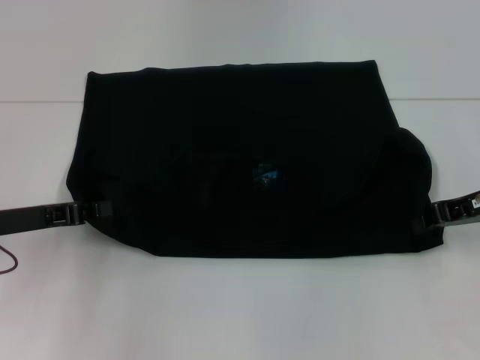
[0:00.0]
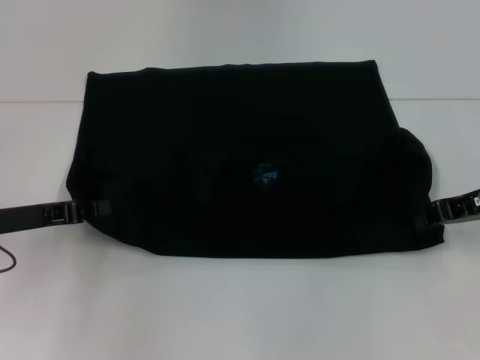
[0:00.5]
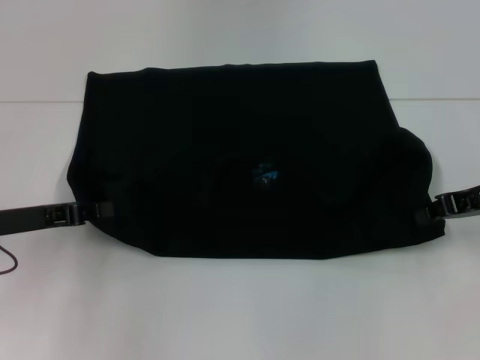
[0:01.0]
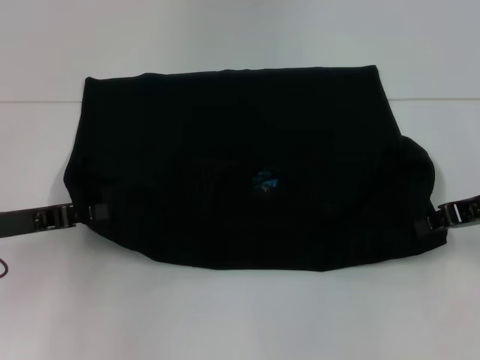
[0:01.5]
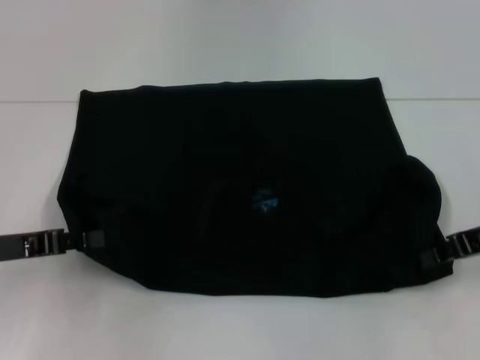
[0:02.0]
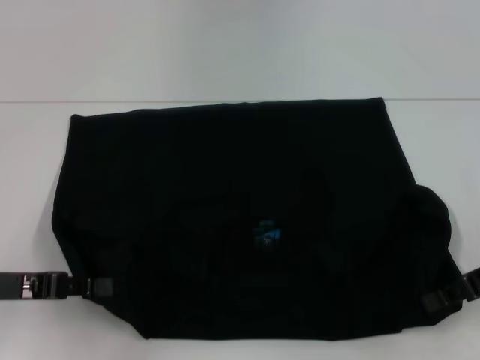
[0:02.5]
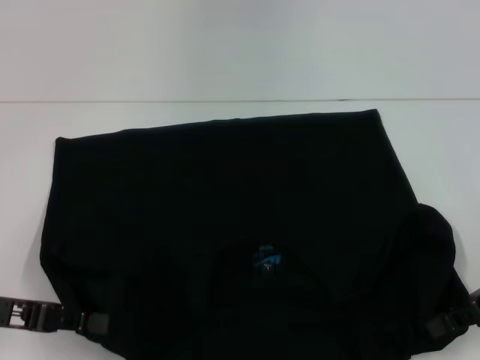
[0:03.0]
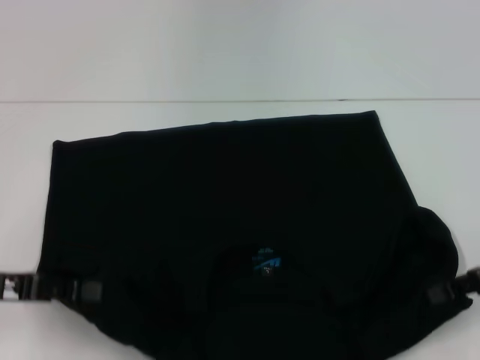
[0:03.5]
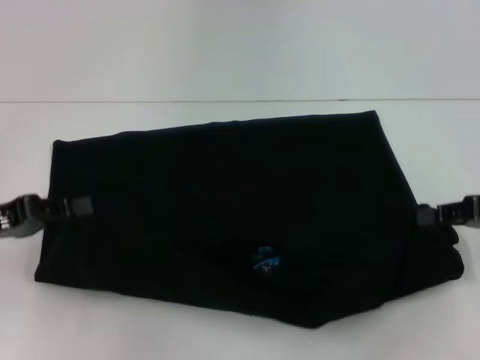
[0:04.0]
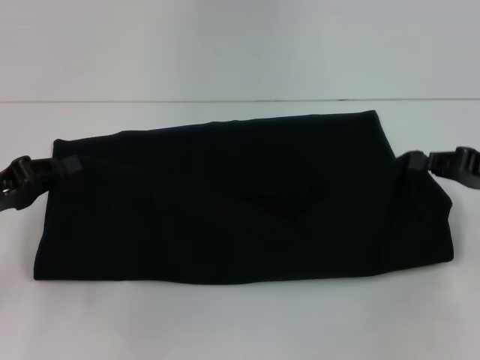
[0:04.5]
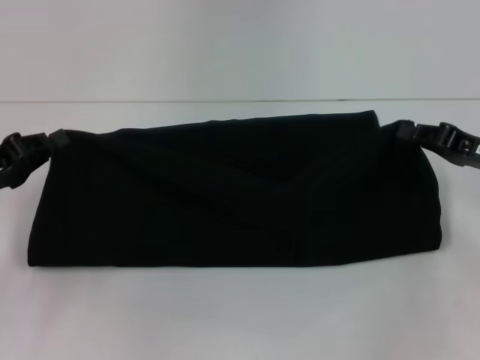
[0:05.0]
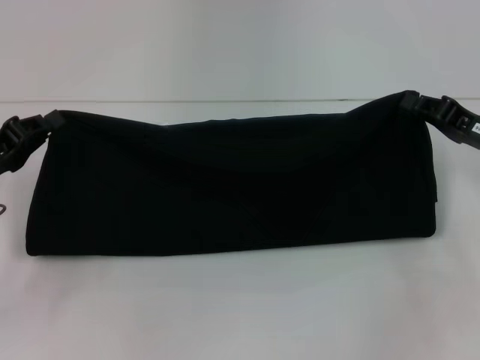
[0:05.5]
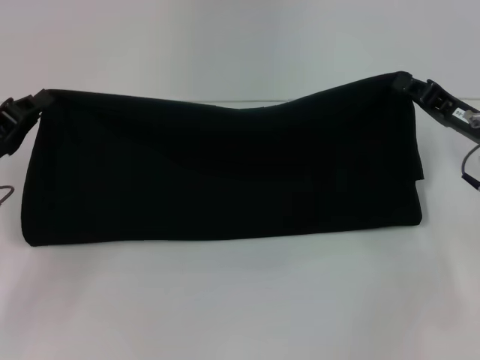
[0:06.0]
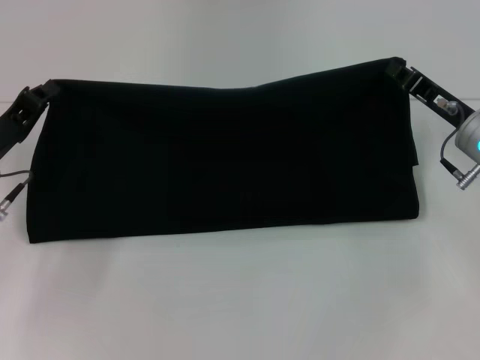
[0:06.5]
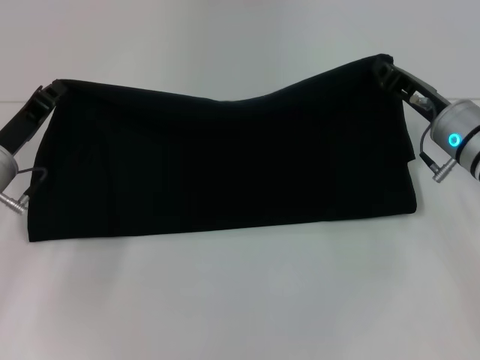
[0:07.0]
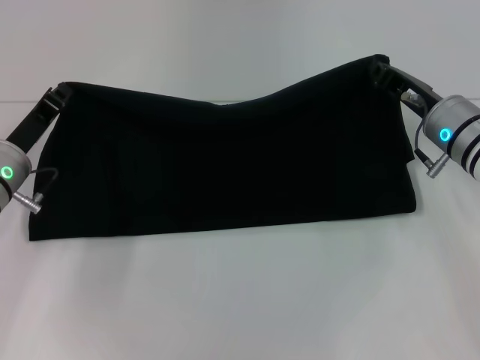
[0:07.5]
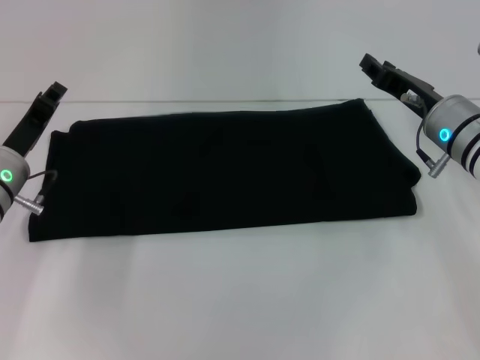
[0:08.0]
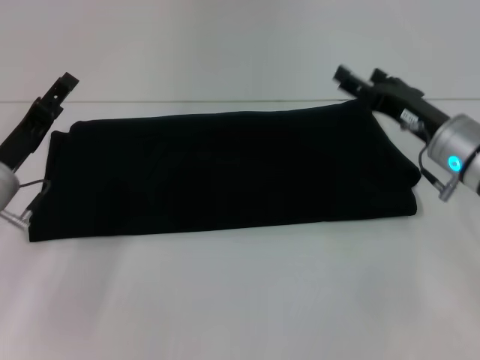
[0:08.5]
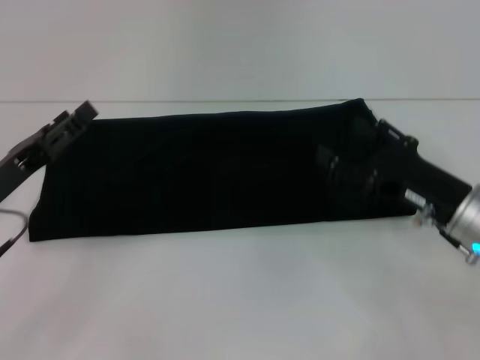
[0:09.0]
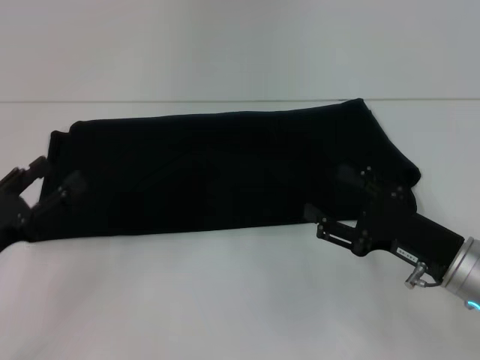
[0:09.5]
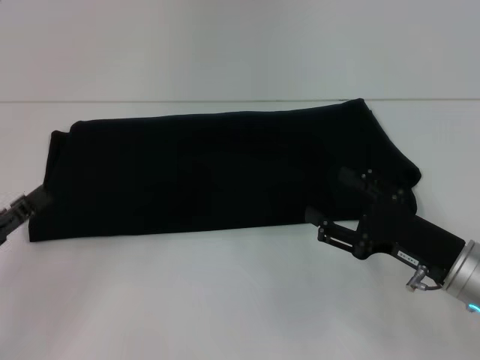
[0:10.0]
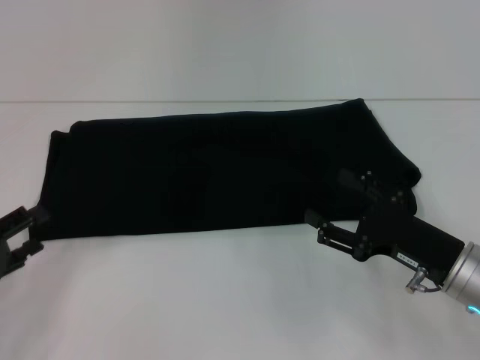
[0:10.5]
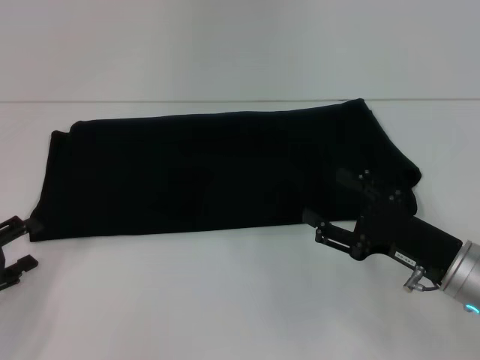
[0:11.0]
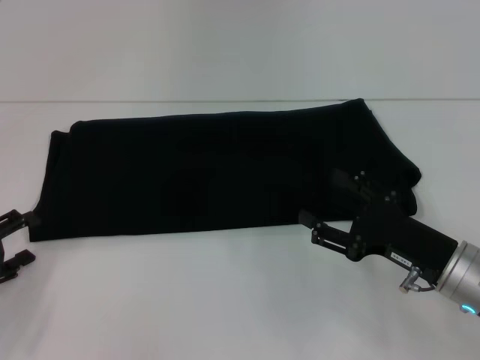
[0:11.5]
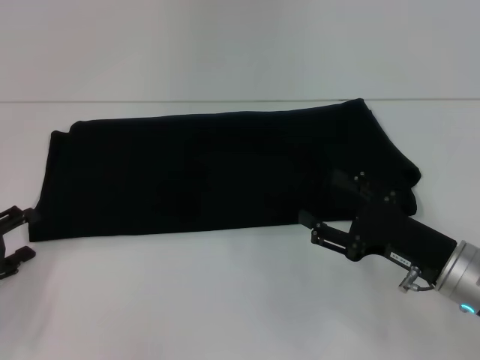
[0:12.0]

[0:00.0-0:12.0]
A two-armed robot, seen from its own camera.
Step, 0:00.0 to 0:03.0: Pull the clothes with your left hand.
Step, 0:00.0 to 0:03.0: Pull the clothes with your right hand.
Step, 0:03.5 to 0:07.5: Fold the clothes with your right hand.
0:00.0 to 0:02.0: There are only small adjustments of the grippers.
0:04.0 to 0:06.0: The right gripper travels to the left and forward by about 10 cm; the left gripper shifts by roughly 5 cm.
0:06.0 to 0:08.0: The right gripper heads to the left, covering about 5 cm, while the left gripper shifts by some 5 cm.
0:08.0 to 0:10.0: The left gripper is displaced backward and to the left by about 15 cm, and opens up; the right gripper heads backward, covering about 15 cm, and opens.
0:10.0 to 0:12.0: The left gripper moves roughly 5 cm.

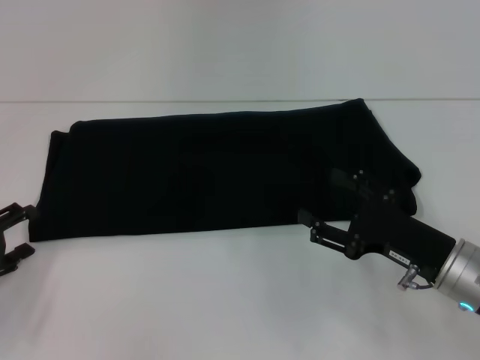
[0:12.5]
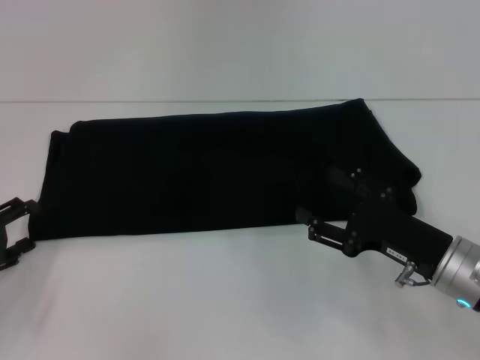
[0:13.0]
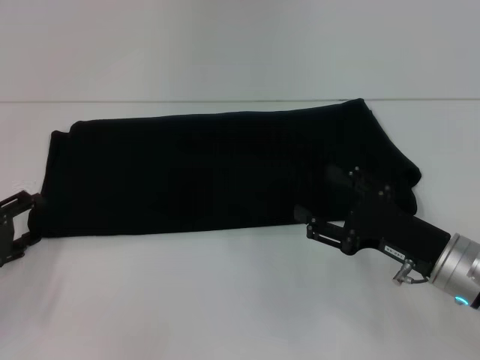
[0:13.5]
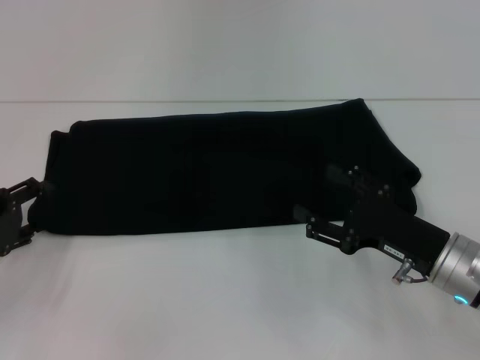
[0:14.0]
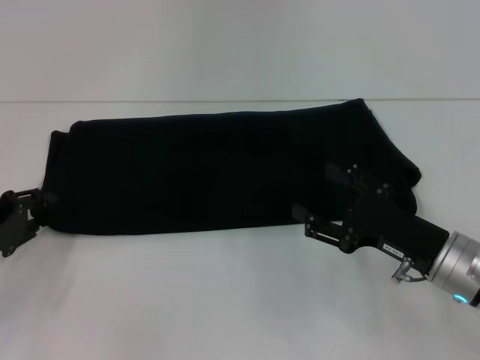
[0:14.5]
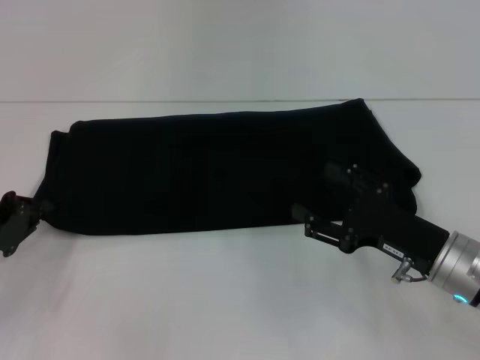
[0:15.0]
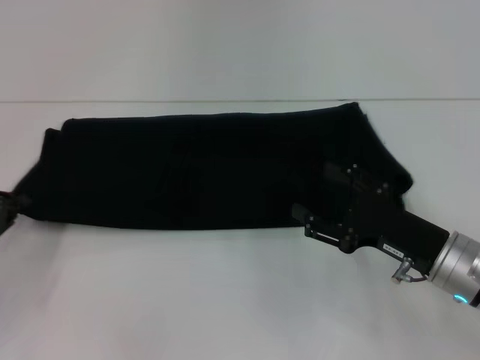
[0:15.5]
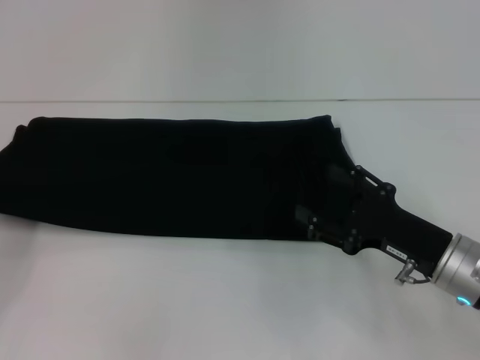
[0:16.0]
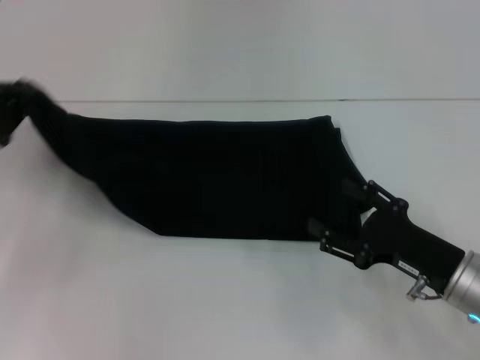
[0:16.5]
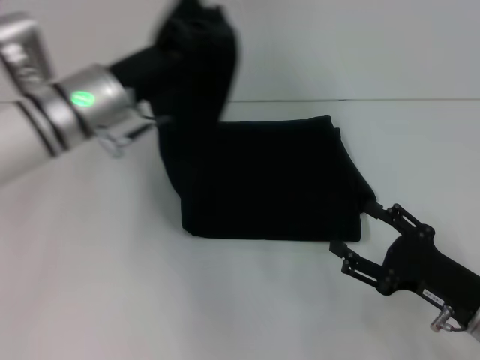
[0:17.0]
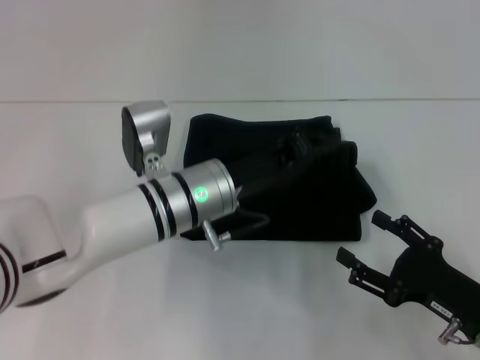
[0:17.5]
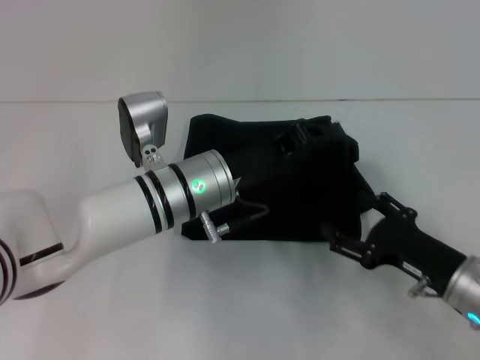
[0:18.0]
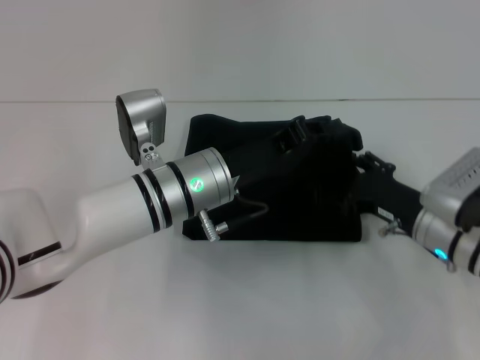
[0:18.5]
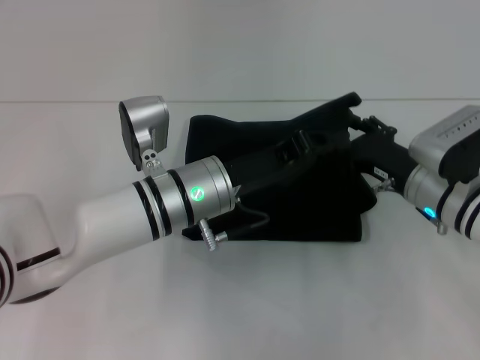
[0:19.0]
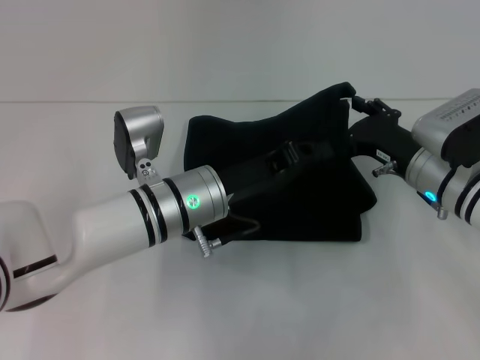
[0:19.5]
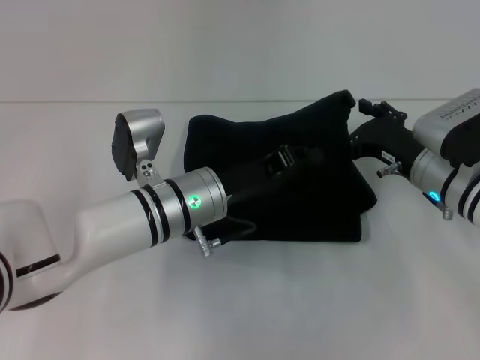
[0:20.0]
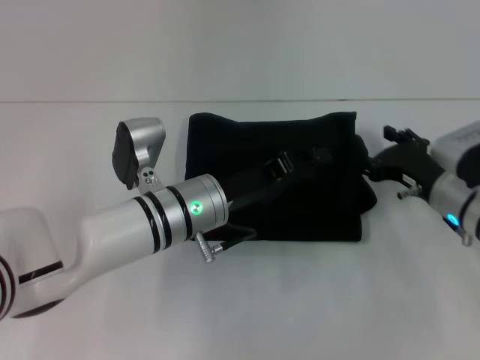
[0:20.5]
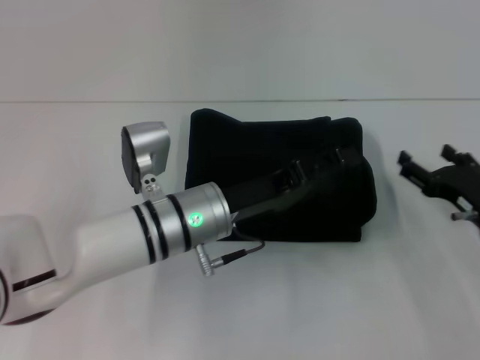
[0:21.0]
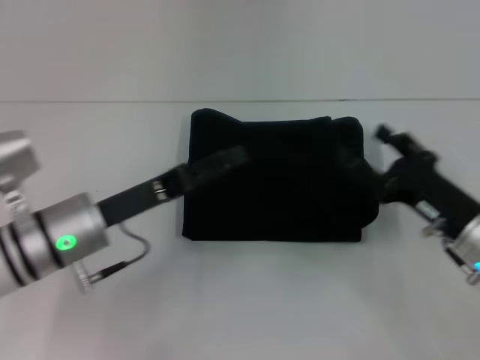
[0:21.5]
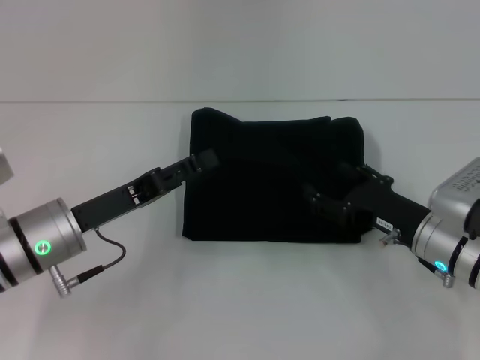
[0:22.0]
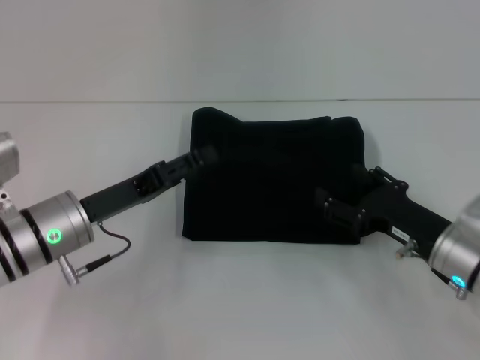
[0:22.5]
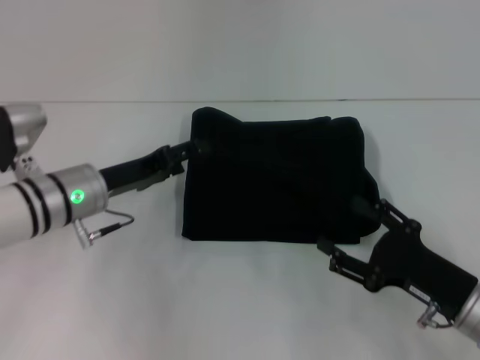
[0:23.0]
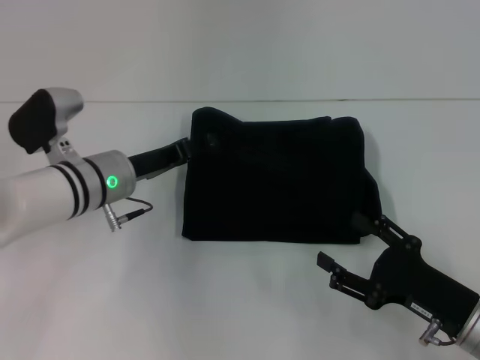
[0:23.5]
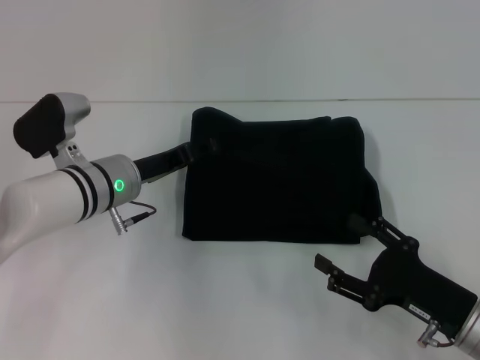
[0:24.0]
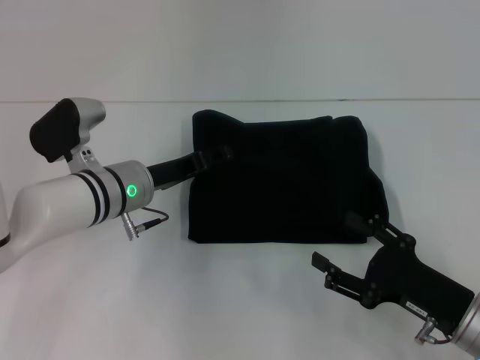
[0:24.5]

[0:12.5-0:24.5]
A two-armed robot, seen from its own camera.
Step, 0:12.5 to 0:20.5: Fold the clothes with your left hand.
0:12.5 to 0:14.5: The grippers move only a little.
0:14.5 to 0:16.5: The left gripper heads upward, covering approximately 5 cm, and closes.
0:16.5 to 0:18.5: The left gripper shifts approximately 25 cm to the right. Meanwhile the right gripper heads forward, covering roughly 5 cm.
0:18.5 to 0:20.5: The grippers stay close to where they were, moving slightly.
0:20.5 to 0:22.5: The right gripper is displaced backward by roughly 5 cm. The left gripper goes roughly 15 cm to the left, and opens.
0:22.5 to 0:24.5: The right gripper travels backward by approximately 10 cm; the left gripper goes some 10 cm forward and to the right.

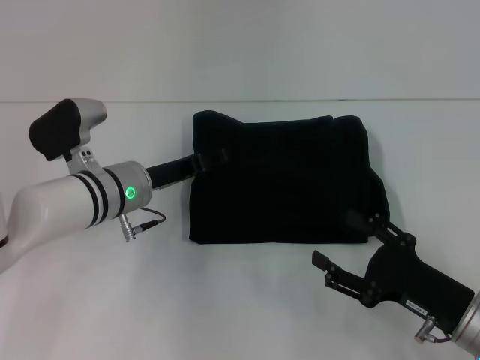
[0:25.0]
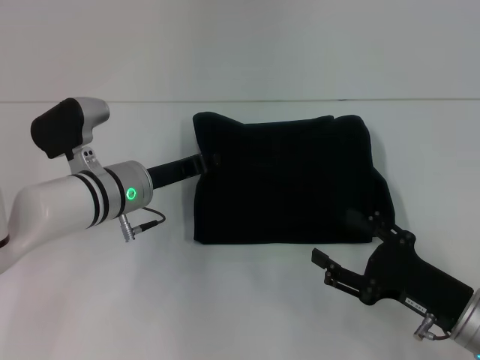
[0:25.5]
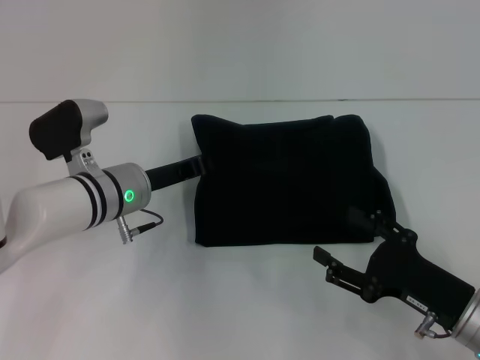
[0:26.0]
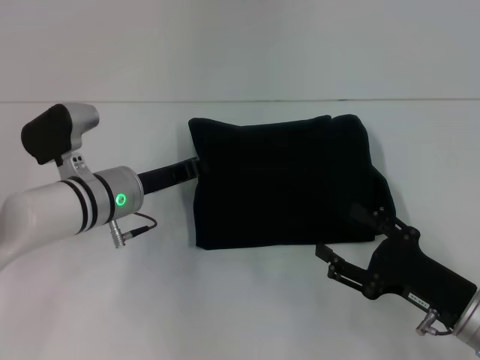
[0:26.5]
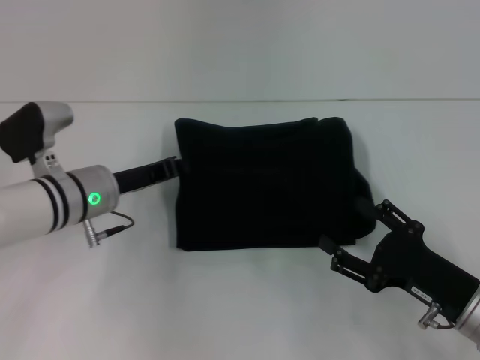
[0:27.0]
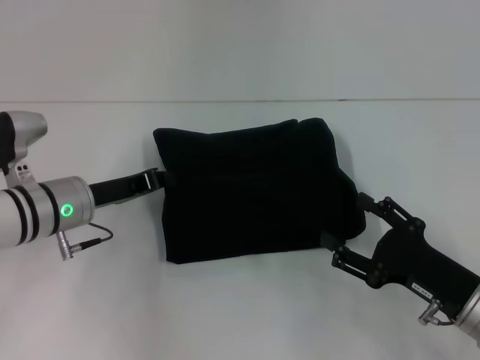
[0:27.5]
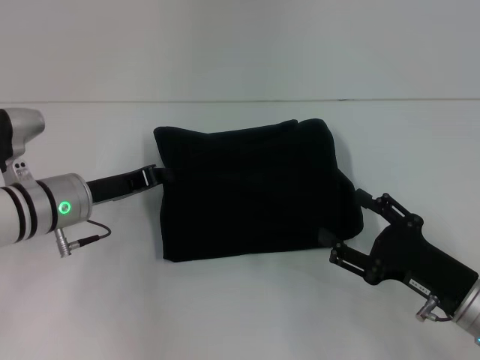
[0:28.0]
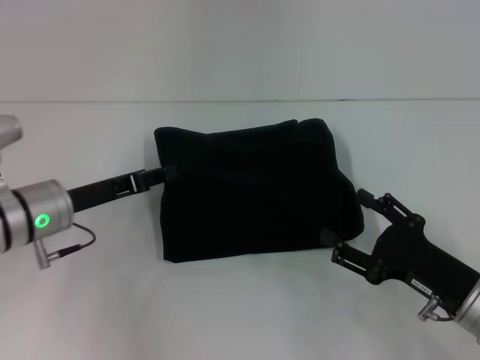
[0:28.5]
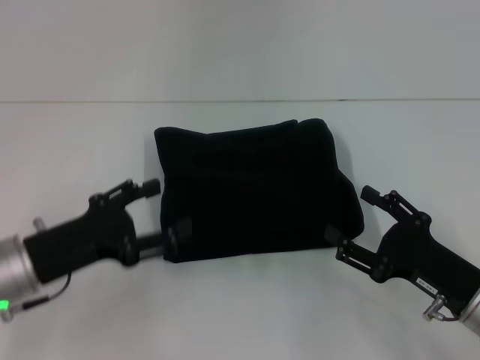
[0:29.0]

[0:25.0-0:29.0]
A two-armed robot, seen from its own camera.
0:25.0 to 0:27.0: The left gripper closes.
0:27.0 to 0:29.0: The left gripper moves backward and to the left, some 10 cm, and opens its fingers.
